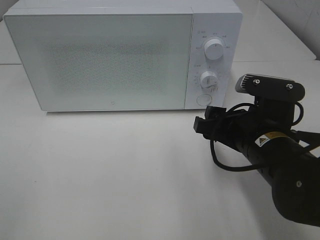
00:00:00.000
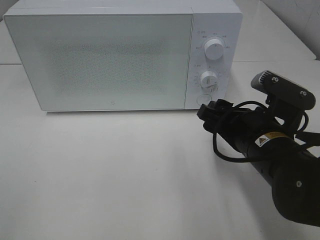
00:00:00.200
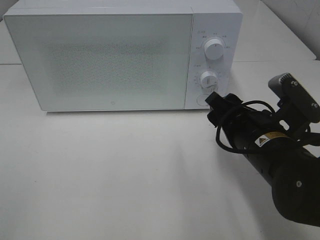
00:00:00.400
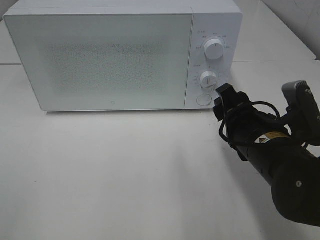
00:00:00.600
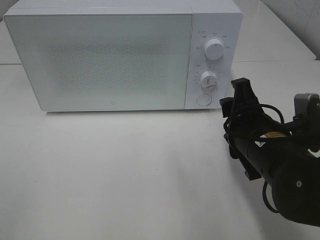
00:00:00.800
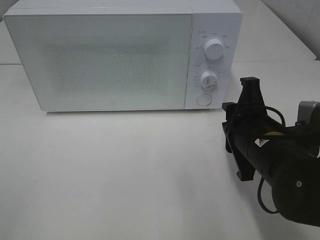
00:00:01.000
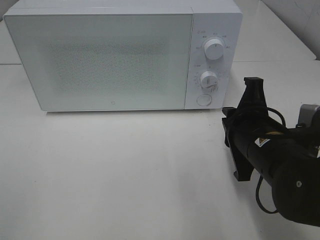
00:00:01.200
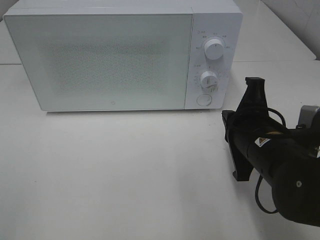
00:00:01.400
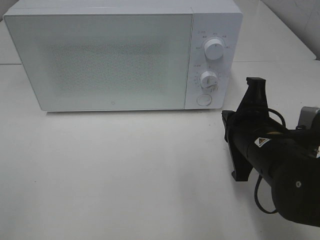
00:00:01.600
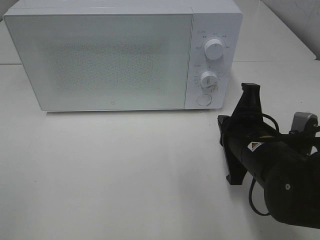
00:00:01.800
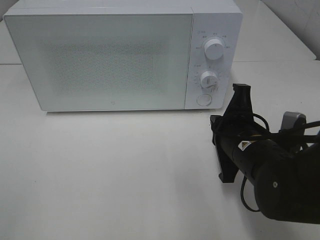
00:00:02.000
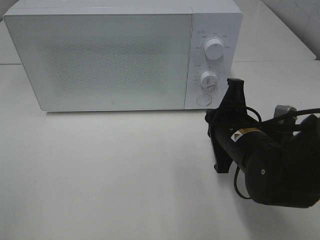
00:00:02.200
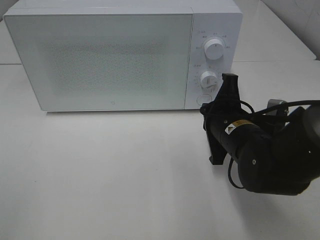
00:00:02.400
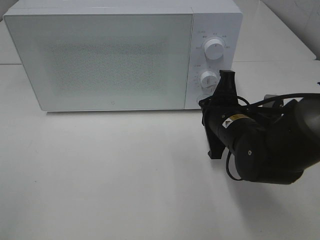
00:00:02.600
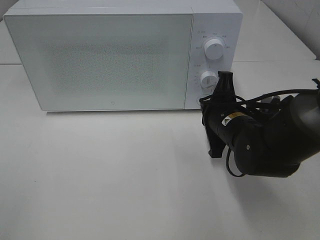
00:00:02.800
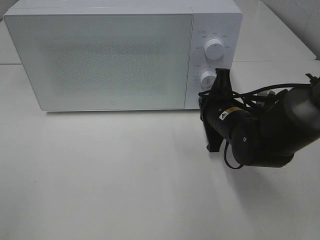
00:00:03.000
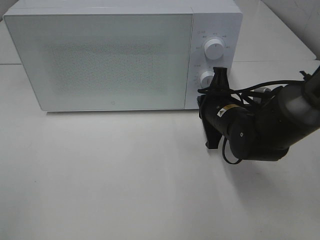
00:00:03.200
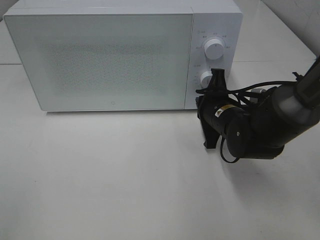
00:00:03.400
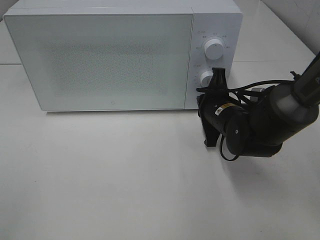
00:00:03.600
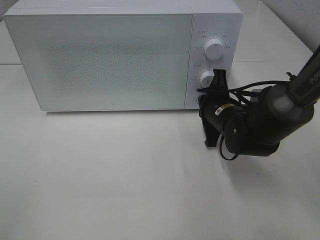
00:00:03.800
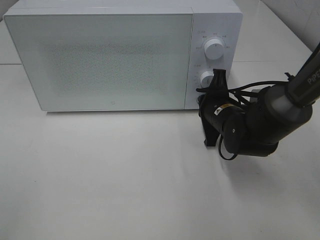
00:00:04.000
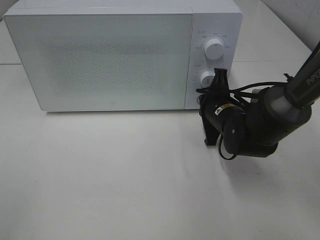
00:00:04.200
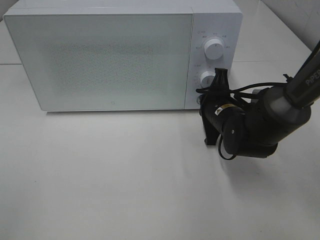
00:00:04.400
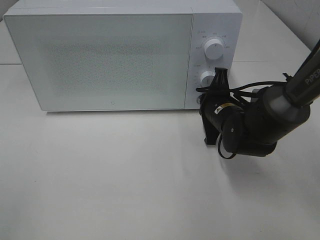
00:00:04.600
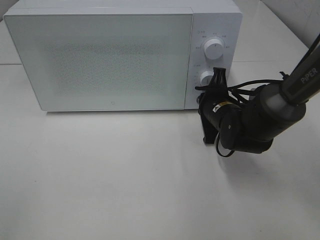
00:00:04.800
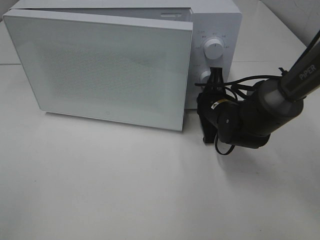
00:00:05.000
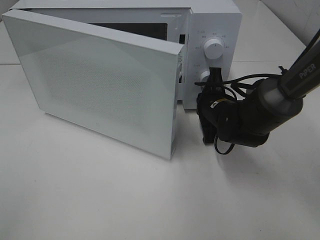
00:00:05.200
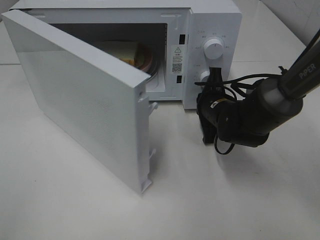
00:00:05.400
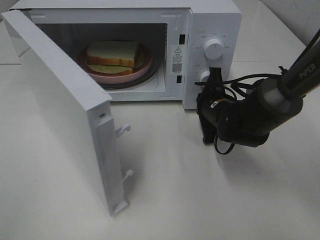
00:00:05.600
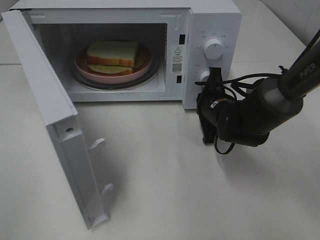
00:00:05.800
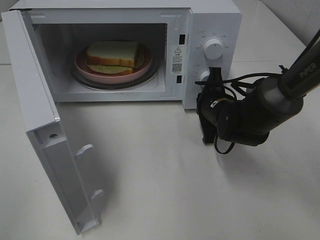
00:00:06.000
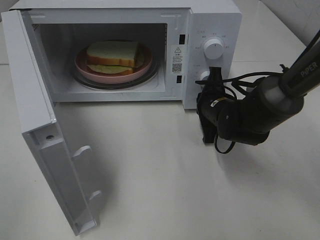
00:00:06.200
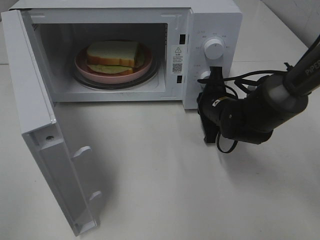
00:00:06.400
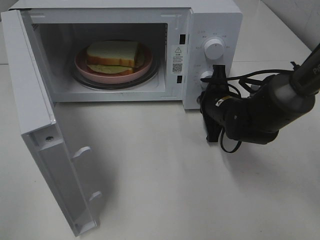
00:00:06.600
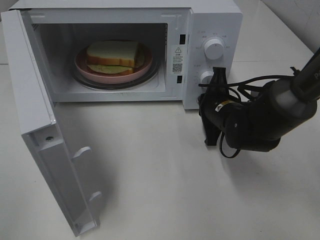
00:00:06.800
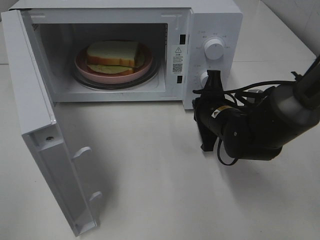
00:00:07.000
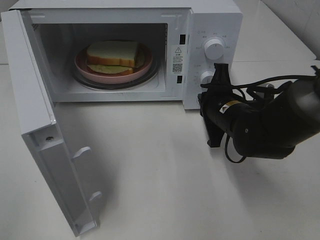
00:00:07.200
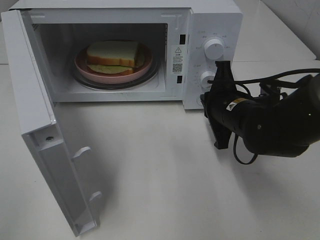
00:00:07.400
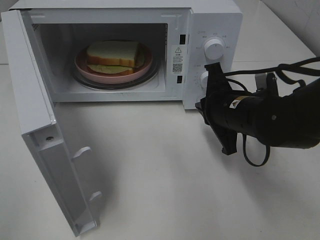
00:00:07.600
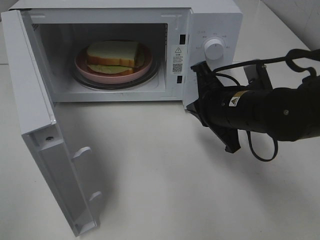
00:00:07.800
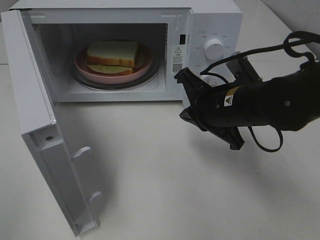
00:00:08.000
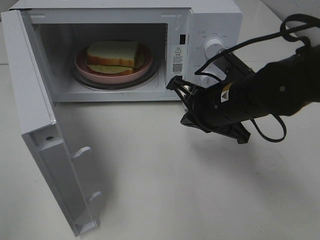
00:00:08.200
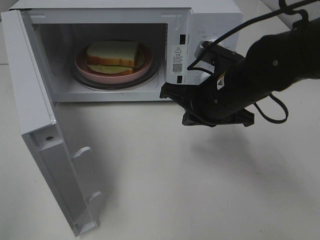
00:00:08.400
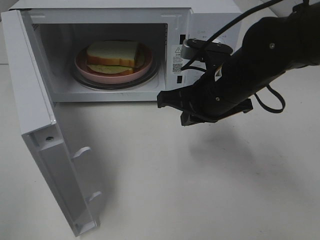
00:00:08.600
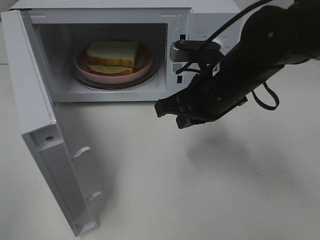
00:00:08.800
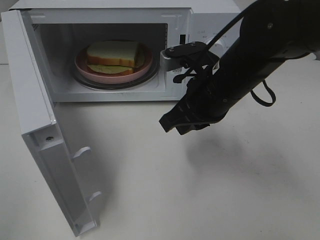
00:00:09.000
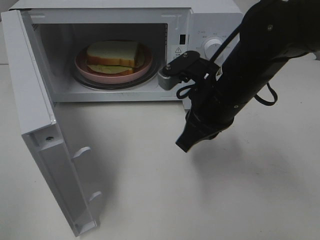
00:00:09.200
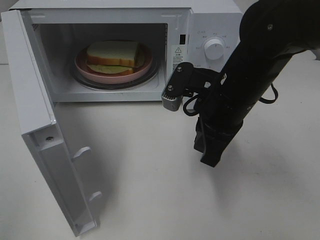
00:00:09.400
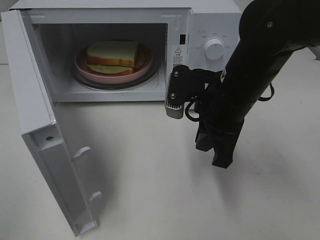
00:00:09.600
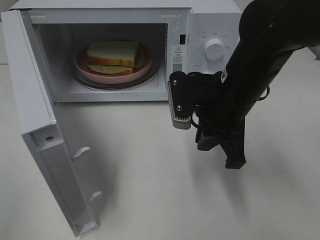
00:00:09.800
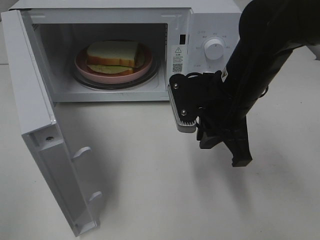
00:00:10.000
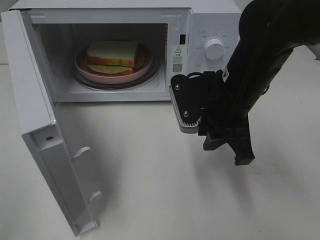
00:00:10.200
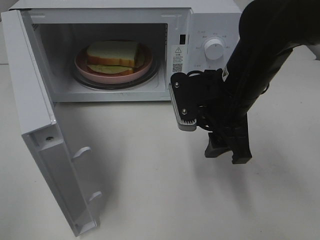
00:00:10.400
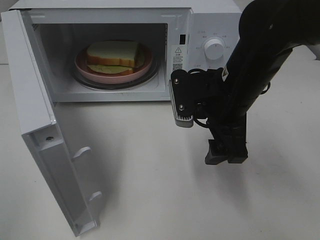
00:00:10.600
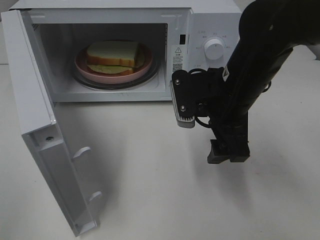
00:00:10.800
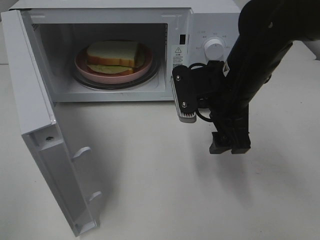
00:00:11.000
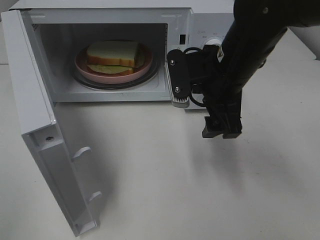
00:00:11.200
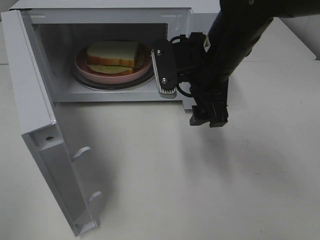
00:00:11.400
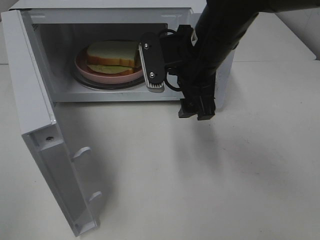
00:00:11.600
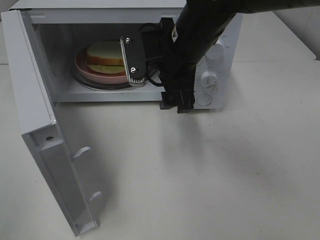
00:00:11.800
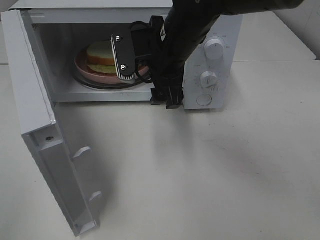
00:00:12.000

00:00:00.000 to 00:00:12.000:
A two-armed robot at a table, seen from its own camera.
Task of the whole recording: Heat Sandwich.
Step, 00:00:00.000 to 00:00:06.800: Right hand: press the switch.
00:00:00.000 to 00:00:01.600: The right gripper closes up.
00:00:01.600 to 00:00:03.000: The right gripper heads forward, covering approximately 10 cm.
00:00:03.000 to 00:00:04.400: The grippers move only a little.
00:00:06.000 to 00:00:07.600: The right gripper moves backward and upward, approximately 10 cm.
00:00:07.600 to 00:00:09.000: The right gripper goes approximately 5 cm upward.
00:00:09.000 to 00:00:10.400: The right gripper opens its fingers.
00:00:10.400 to 00:00:12.000: The right gripper travels to the left and forward by about 10 cm.

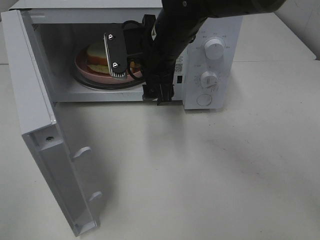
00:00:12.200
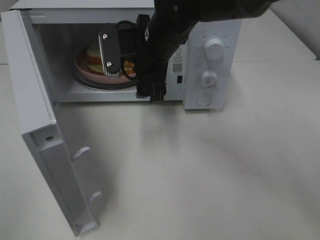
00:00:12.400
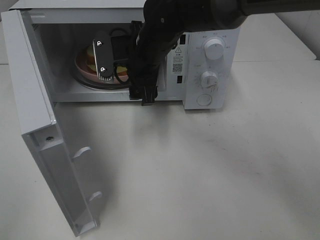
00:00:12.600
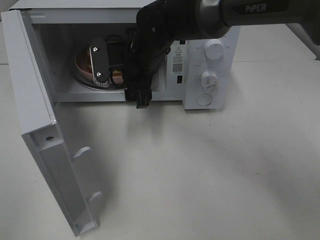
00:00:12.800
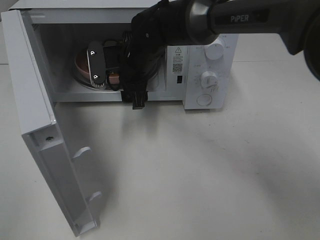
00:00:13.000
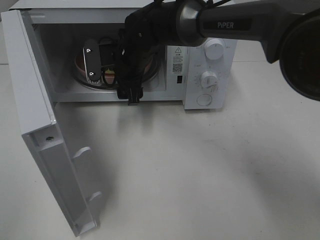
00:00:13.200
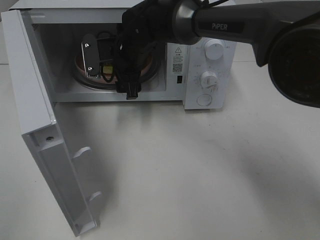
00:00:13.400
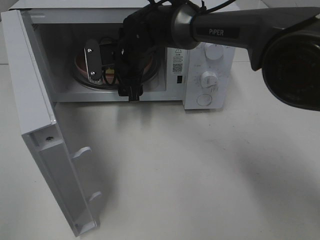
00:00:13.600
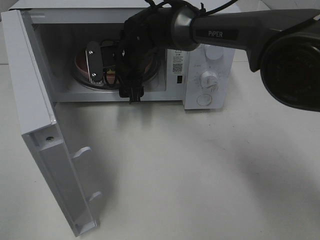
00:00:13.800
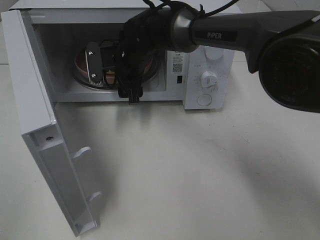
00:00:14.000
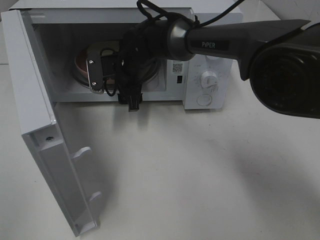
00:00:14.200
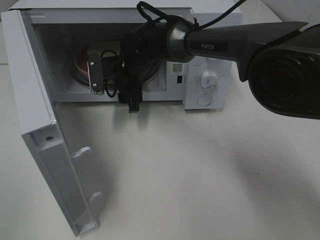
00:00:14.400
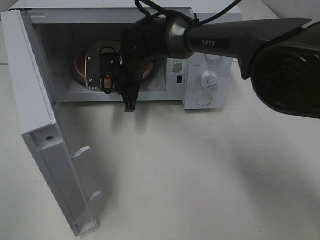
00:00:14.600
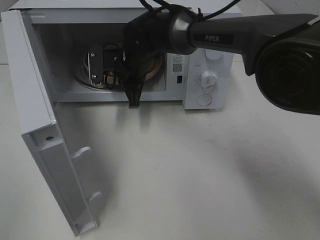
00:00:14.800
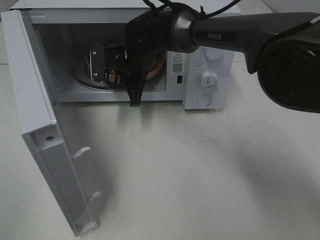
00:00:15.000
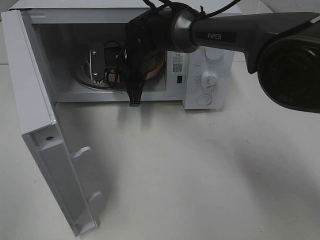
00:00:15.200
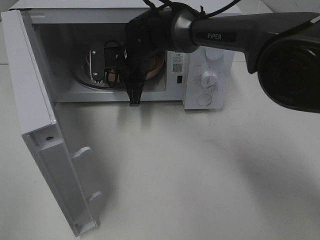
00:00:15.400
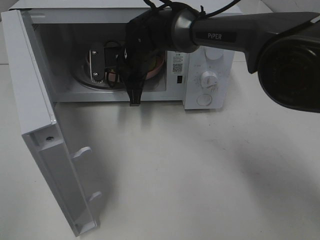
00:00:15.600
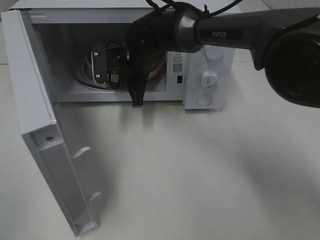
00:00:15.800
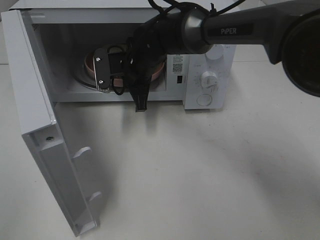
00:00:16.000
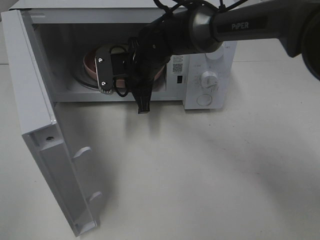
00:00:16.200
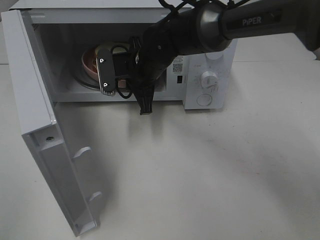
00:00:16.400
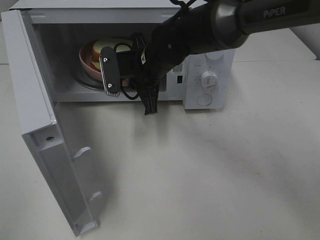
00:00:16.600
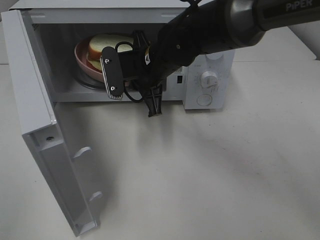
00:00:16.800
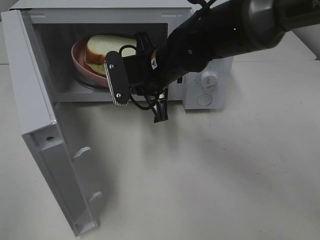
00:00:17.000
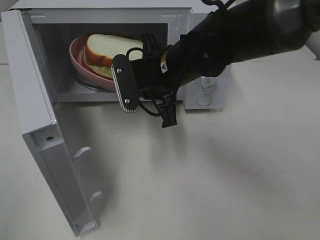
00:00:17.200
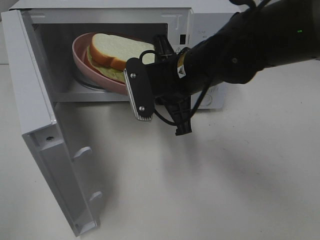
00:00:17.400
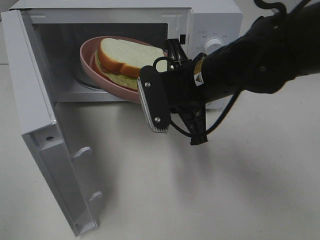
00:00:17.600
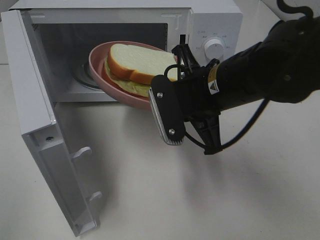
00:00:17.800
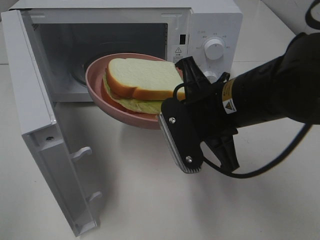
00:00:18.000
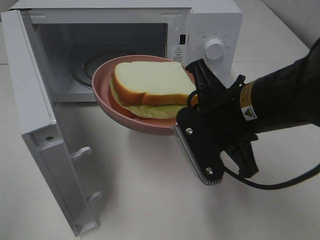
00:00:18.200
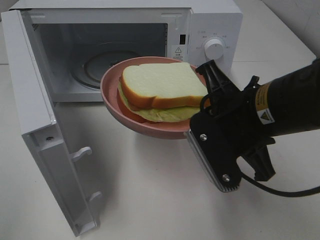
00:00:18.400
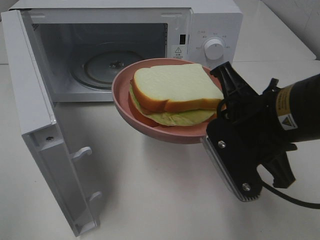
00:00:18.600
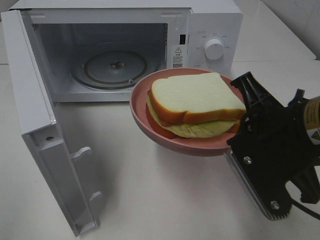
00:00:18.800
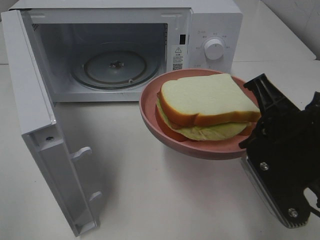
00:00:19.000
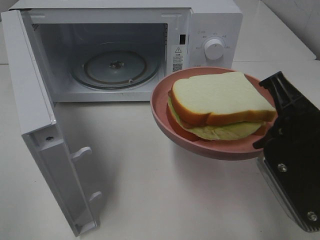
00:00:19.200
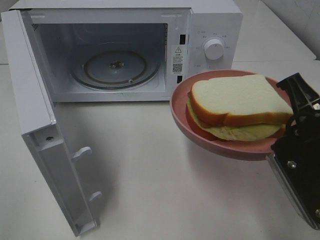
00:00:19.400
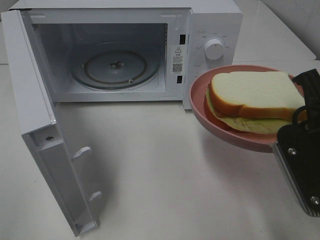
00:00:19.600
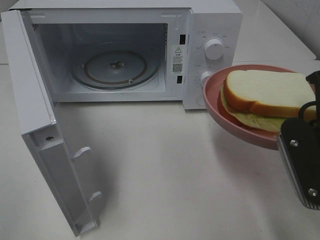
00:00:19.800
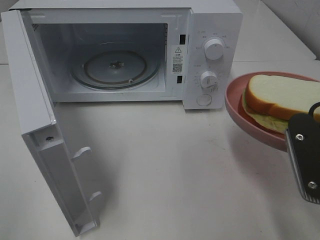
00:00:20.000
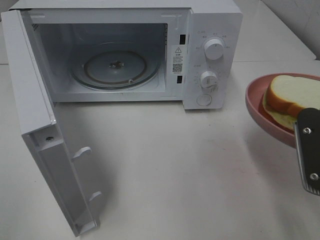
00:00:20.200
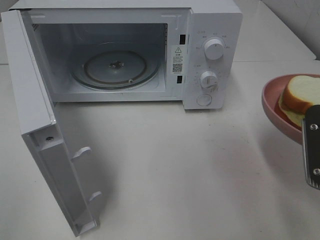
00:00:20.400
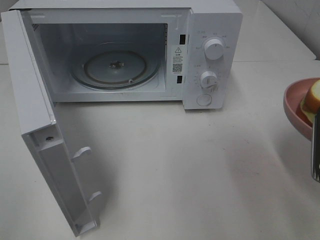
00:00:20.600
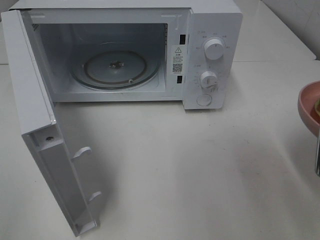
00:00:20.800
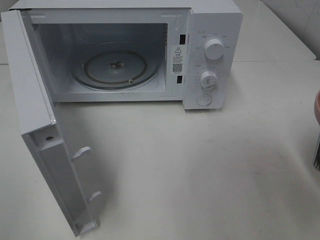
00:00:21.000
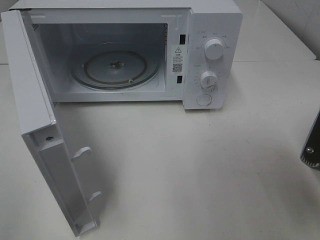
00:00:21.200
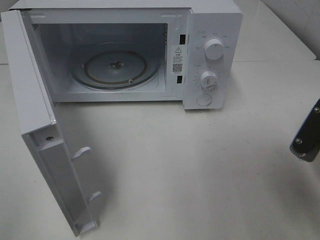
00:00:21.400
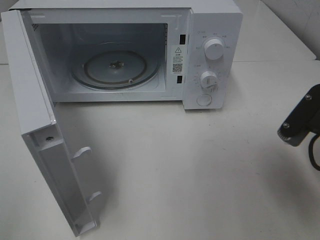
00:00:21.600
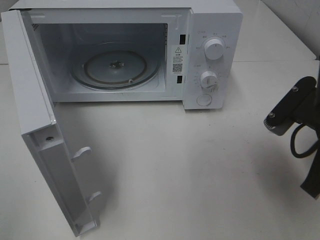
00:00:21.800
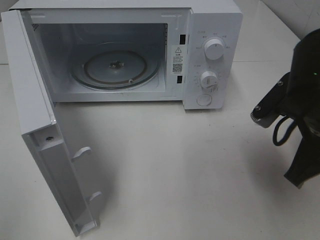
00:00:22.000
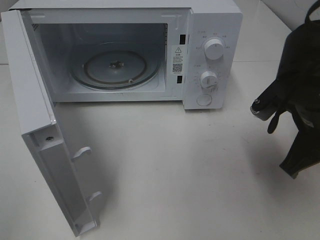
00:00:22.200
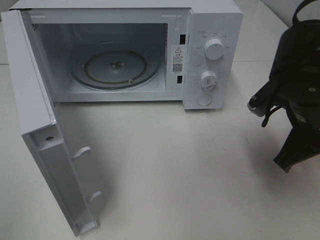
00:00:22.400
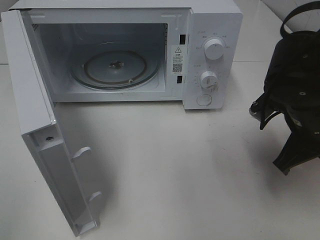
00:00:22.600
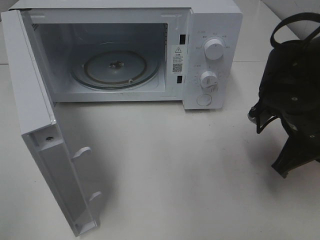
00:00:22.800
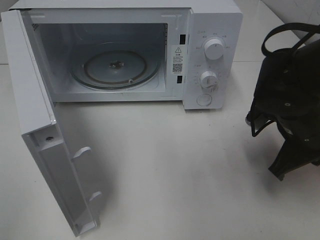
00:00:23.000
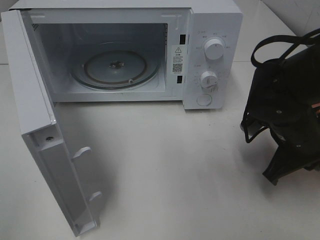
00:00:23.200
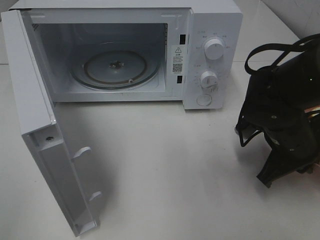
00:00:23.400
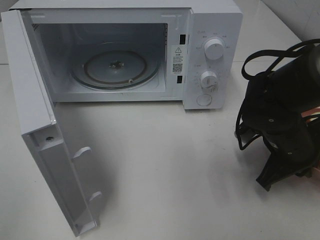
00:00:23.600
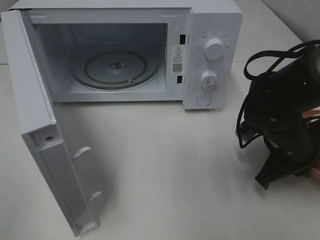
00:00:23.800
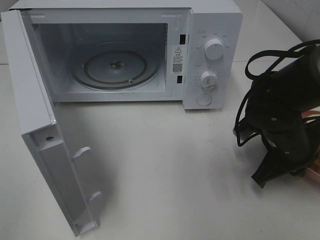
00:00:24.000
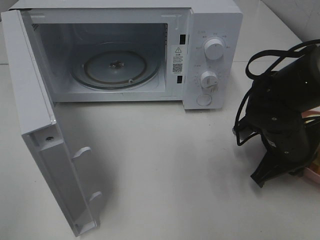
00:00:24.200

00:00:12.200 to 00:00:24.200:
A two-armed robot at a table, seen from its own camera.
Task of the whole recording: Heat Sandwich.
Step, 00:00:12.200 to 00:00:15.200: Right hand: grab the plate with the sandwich.
00:00:12.200 to 00:00:13.800: The right gripper heads forward, downward and to the left, covering roughly 10 cm.
00:00:13.800 to 00:00:15.200: The right gripper closes up.
00:00:15.200 to 00:00:16.600: The right gripper heads backward, covering about 5 cm.
00:00:16.600 to 00:00:18.200: The right gripper shifts some 20 cm backward and to the right.
00:00:18.200 to 00:00:19.800: The right gripper heads to the right and backward, covering some 10 cm.
00:00:21.200 to 00:00:22.600: The right gripper moves forward, about 10 cm.
00:00:22.600 to 00:00:24.200: The right gripper shifts roughly 5 cm downward.
